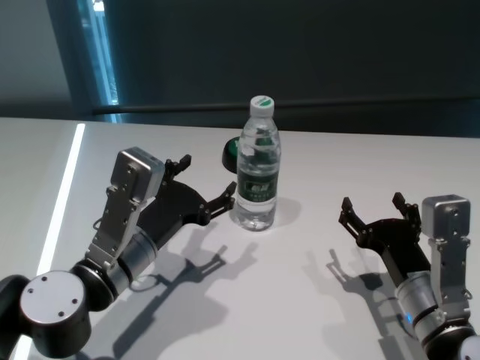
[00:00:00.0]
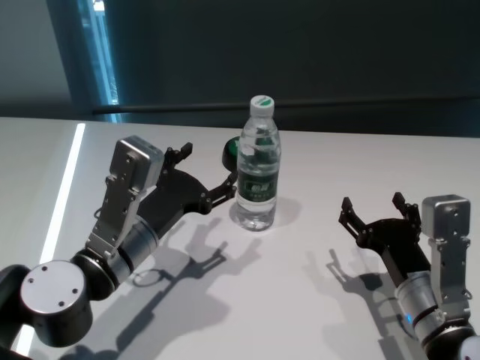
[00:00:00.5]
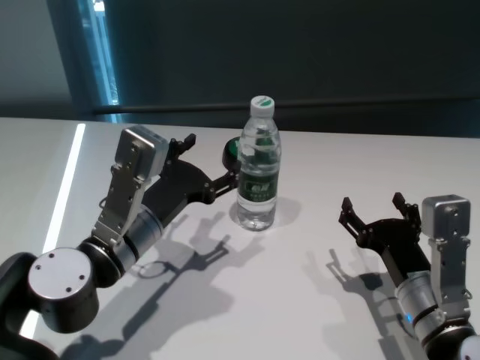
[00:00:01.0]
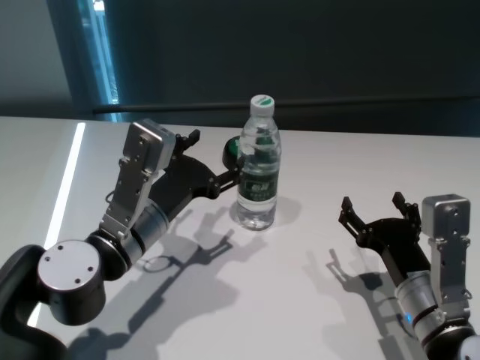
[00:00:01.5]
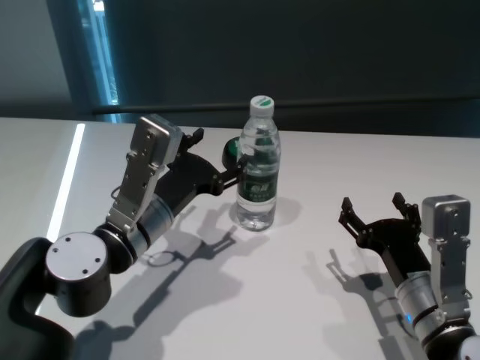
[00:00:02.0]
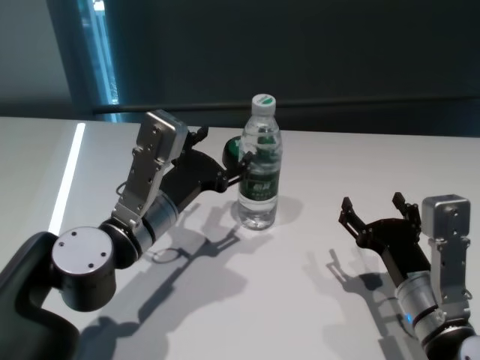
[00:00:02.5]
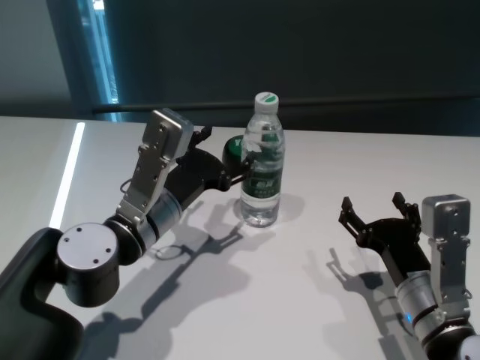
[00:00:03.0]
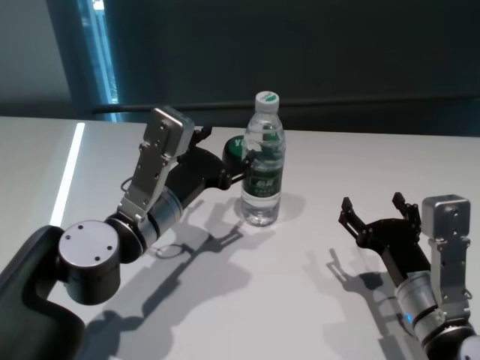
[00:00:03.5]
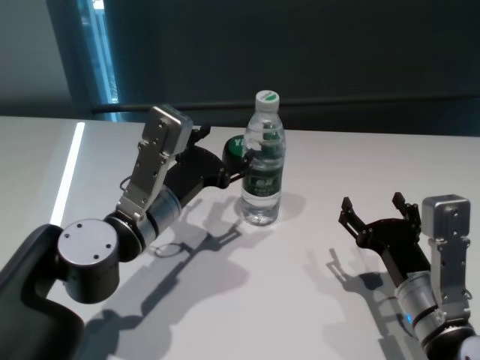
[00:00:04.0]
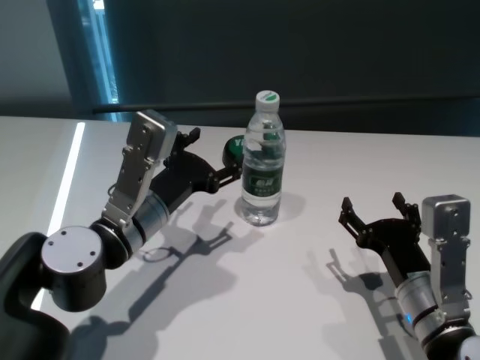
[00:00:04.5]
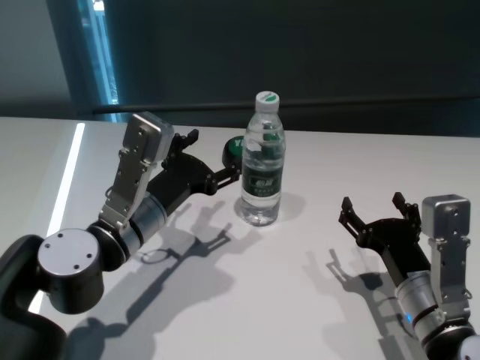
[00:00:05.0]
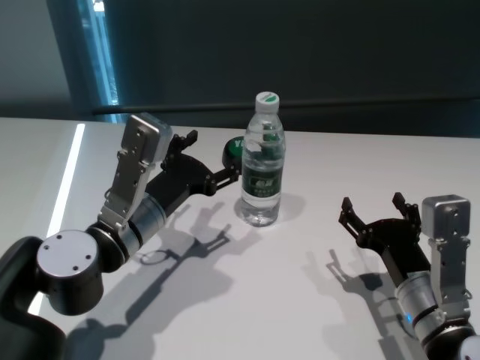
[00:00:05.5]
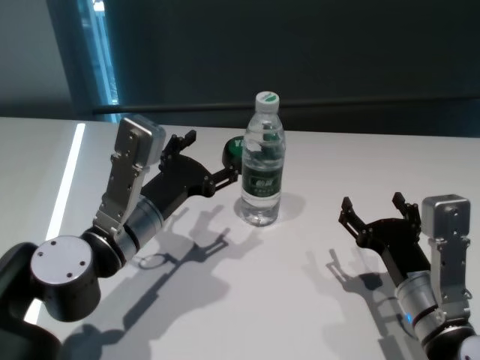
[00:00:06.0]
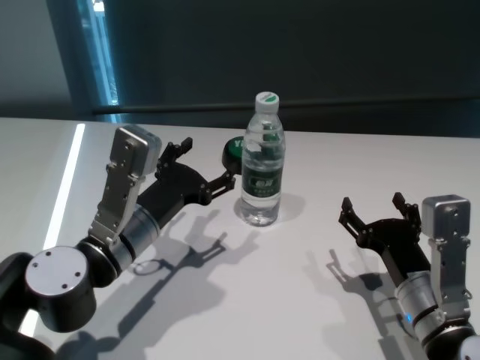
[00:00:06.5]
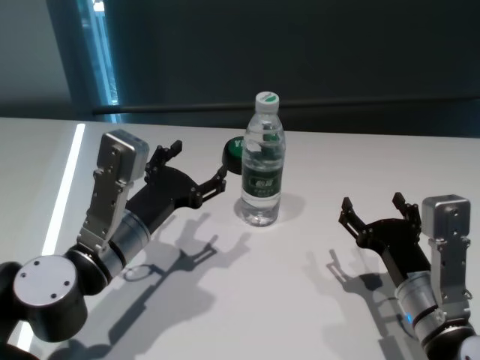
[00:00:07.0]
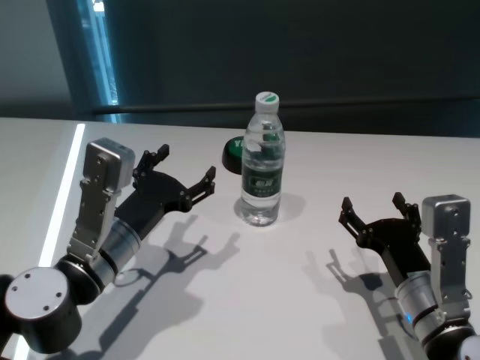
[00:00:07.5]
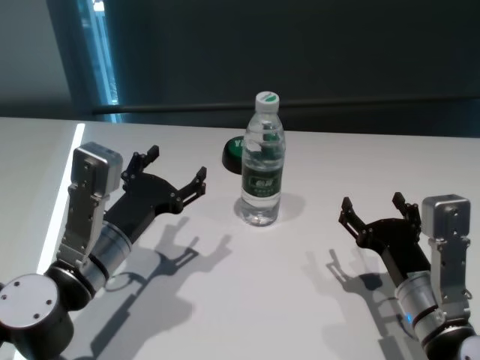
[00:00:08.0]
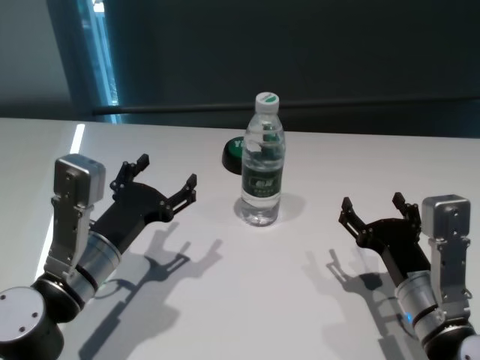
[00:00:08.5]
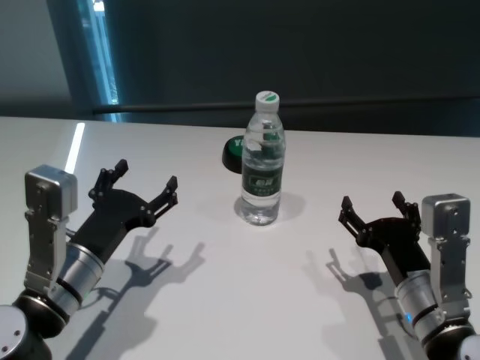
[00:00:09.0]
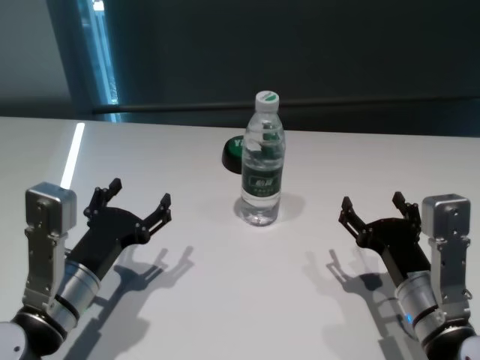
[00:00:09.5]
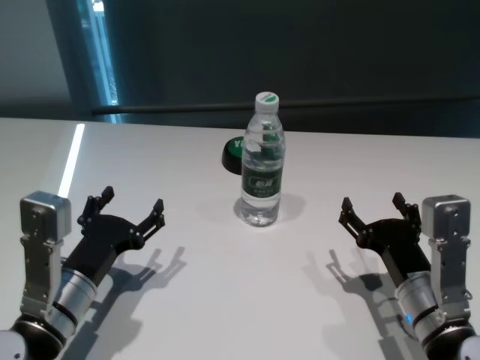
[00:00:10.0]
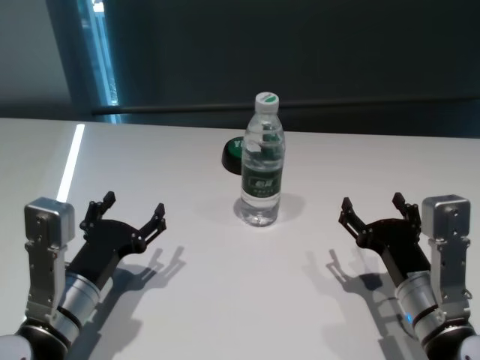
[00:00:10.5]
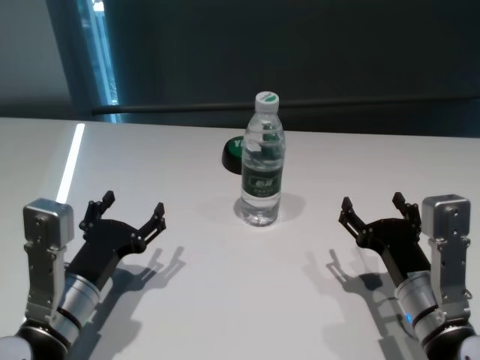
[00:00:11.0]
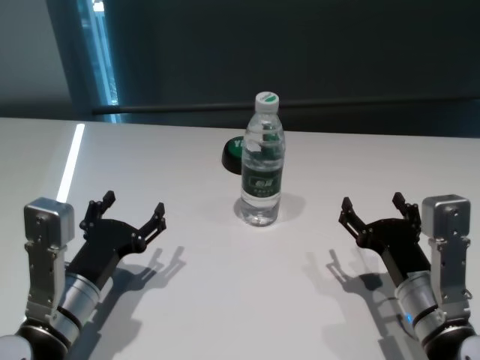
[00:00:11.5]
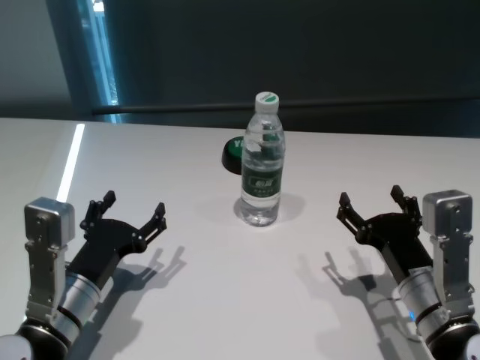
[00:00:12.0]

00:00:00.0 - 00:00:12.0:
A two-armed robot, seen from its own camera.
Task of the whole recording: return to a safe position after touching an obstacle with your arm on the white table.
Step, 00:00:00.0 - 00:00:06.0: Touch the bottle with left gripper.

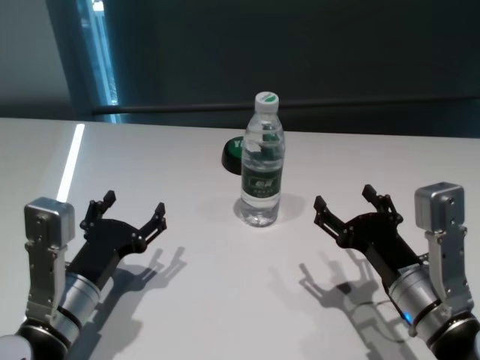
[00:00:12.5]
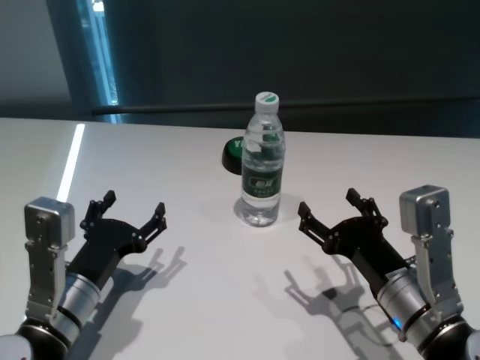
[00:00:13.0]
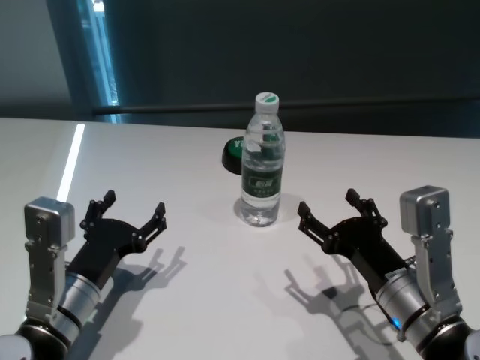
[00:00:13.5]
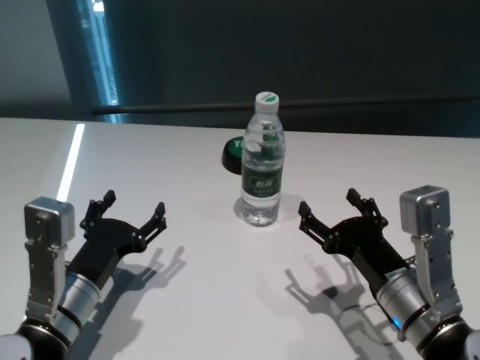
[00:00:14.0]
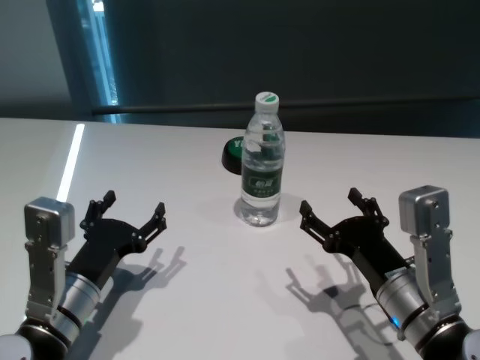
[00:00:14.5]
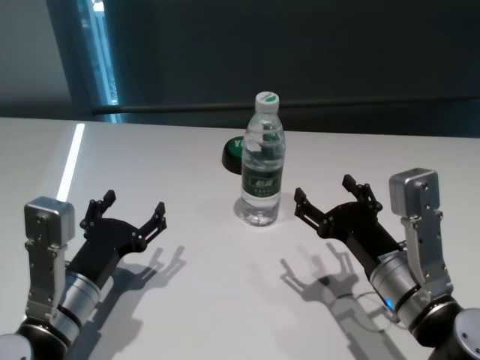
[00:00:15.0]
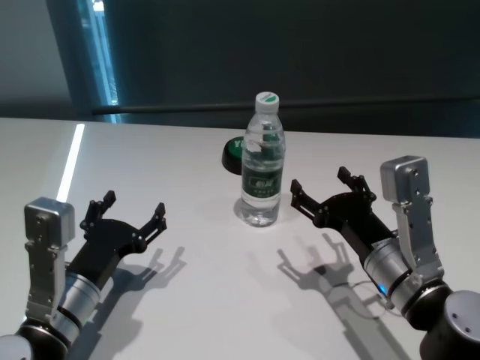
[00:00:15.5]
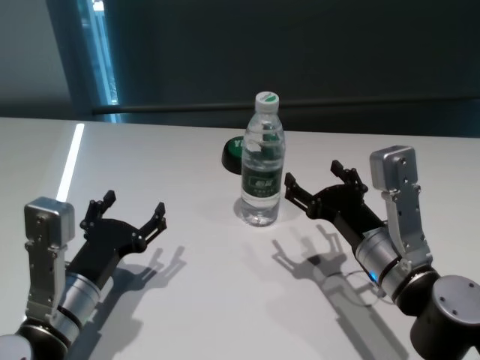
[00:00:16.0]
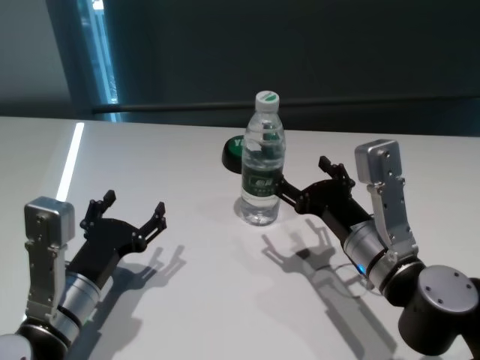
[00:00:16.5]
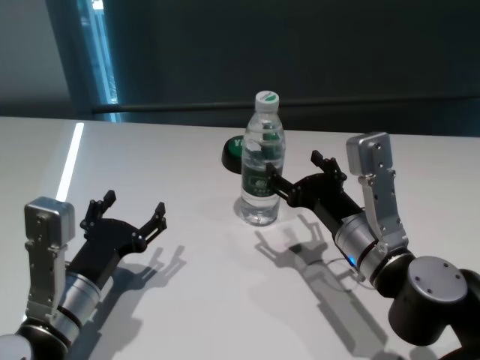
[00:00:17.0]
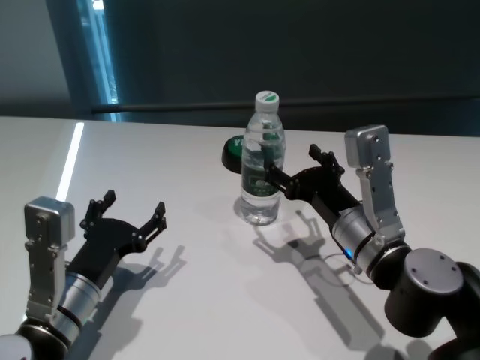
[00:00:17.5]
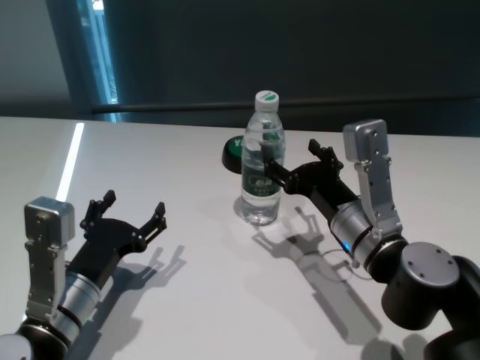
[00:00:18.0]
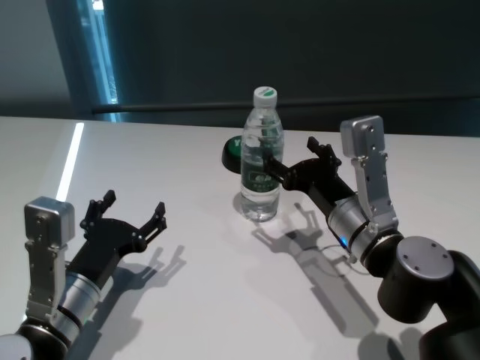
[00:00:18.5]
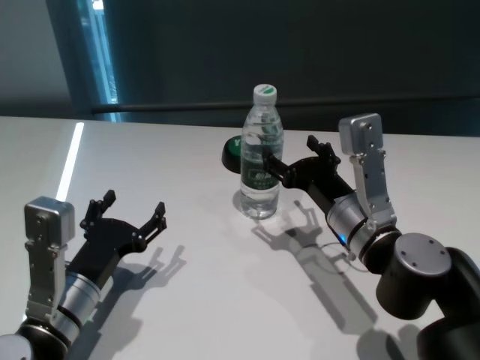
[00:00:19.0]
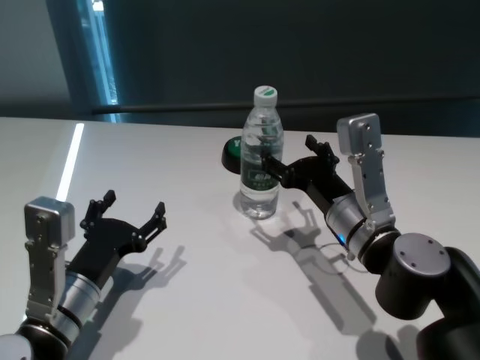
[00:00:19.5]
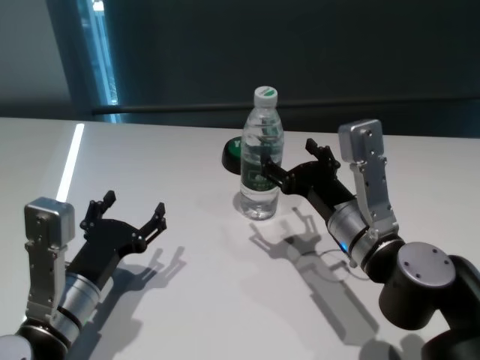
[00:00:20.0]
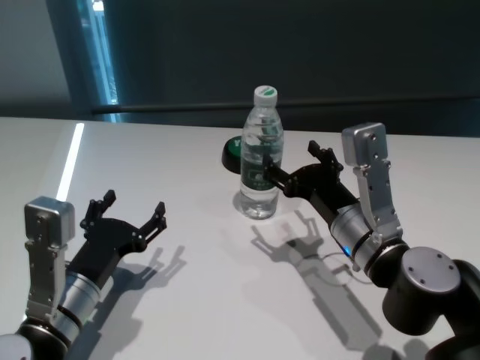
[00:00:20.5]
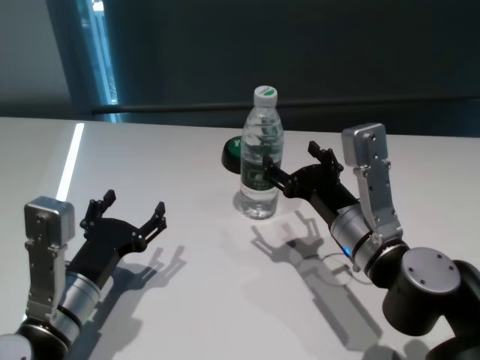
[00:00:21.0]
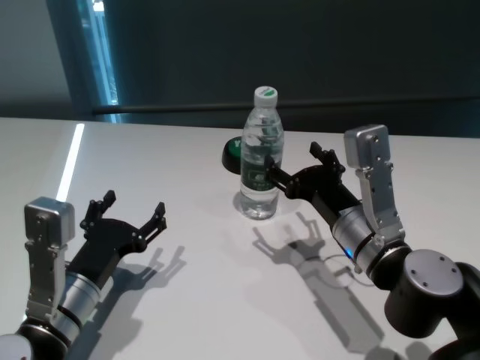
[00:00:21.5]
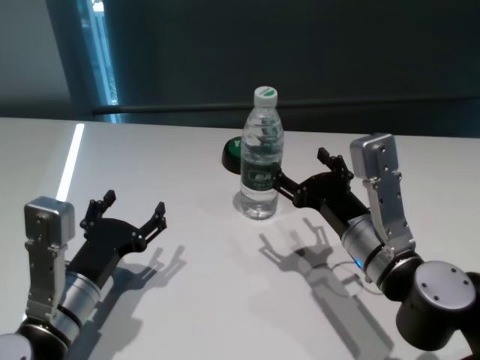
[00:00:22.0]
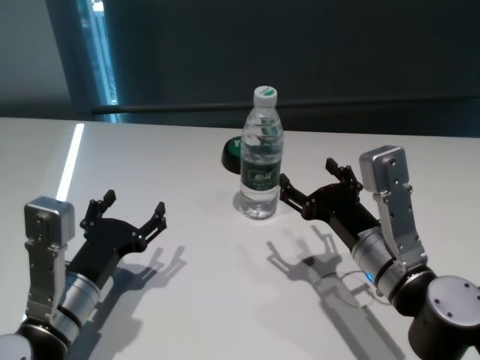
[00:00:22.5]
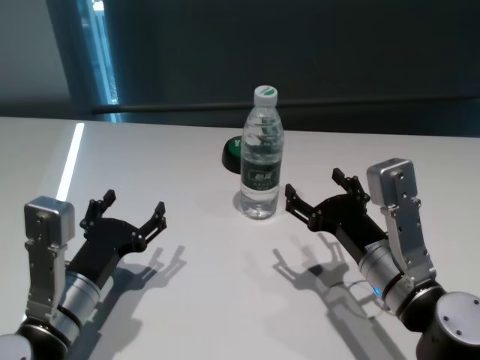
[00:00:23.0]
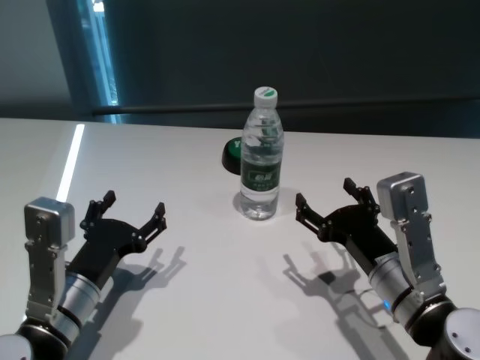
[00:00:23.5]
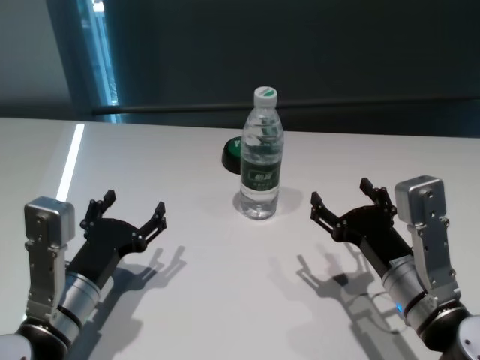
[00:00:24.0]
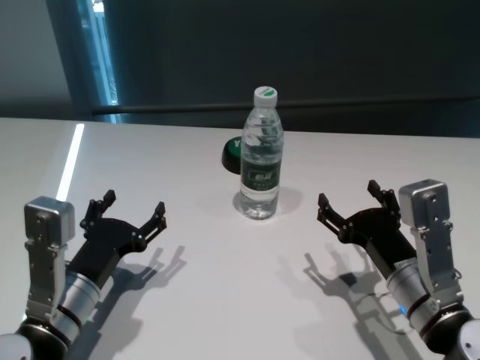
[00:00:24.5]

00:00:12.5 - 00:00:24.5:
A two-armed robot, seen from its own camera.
Task of the whole recording: return to a safe position after touching an obstacle with your arm on the white table.
Step, 00:00:12.5 - 00:00:22.5: Touch the bottle with right gripper.
